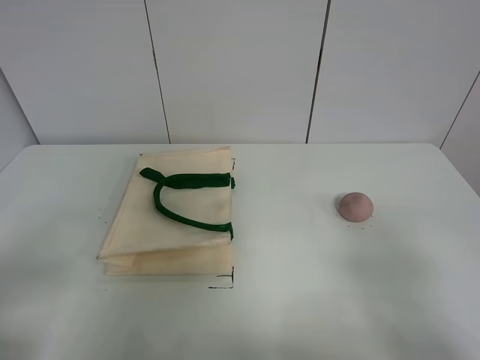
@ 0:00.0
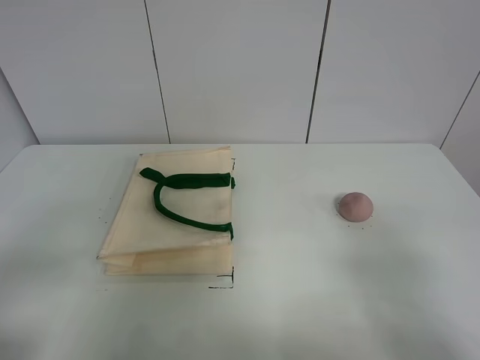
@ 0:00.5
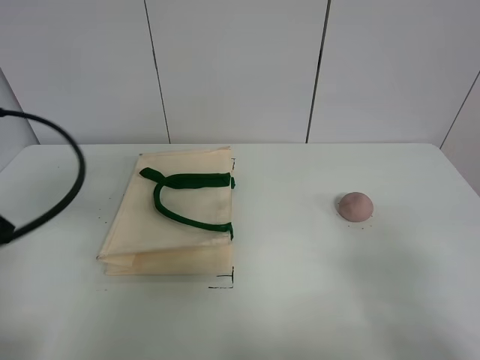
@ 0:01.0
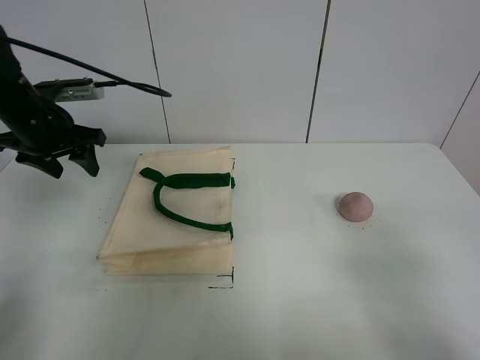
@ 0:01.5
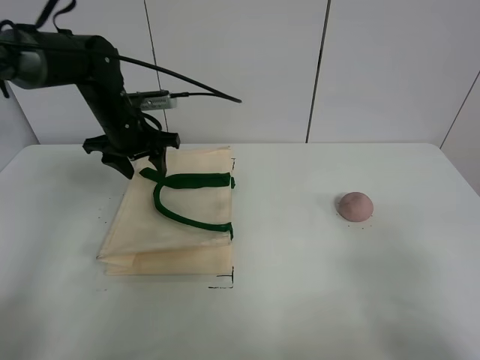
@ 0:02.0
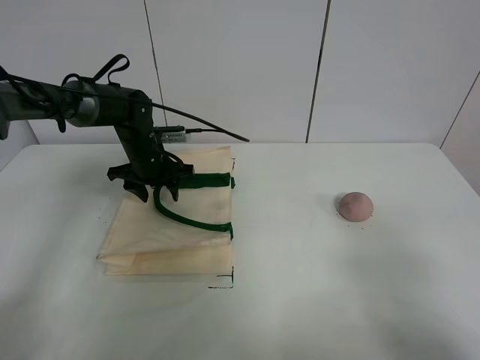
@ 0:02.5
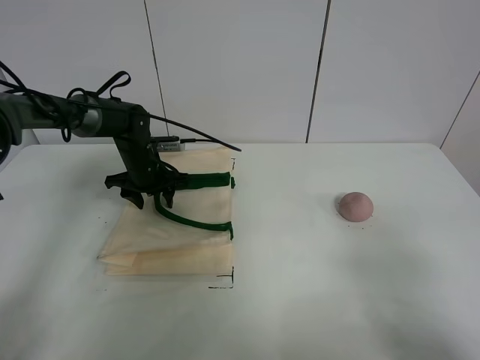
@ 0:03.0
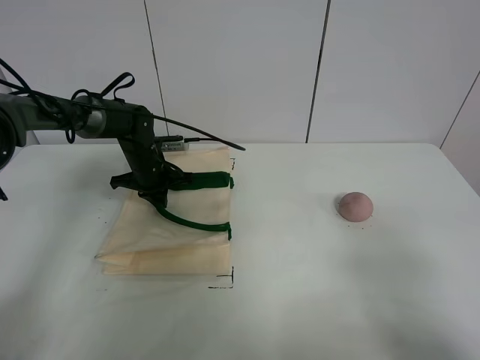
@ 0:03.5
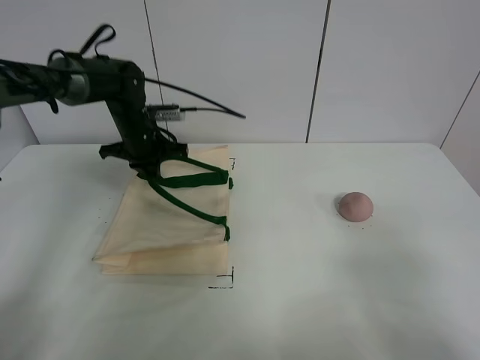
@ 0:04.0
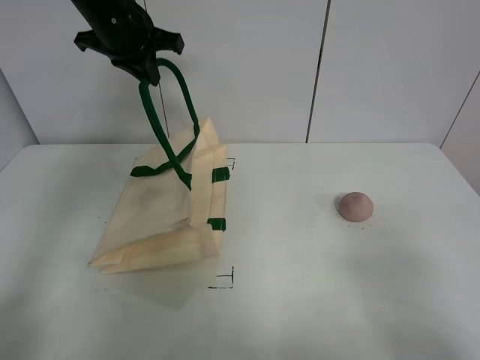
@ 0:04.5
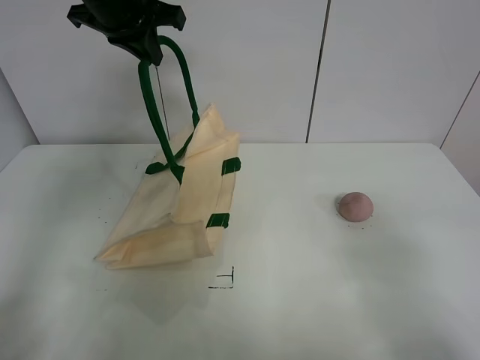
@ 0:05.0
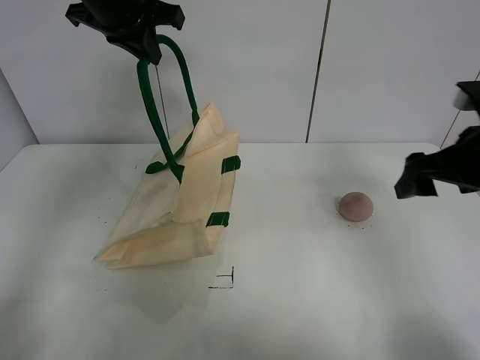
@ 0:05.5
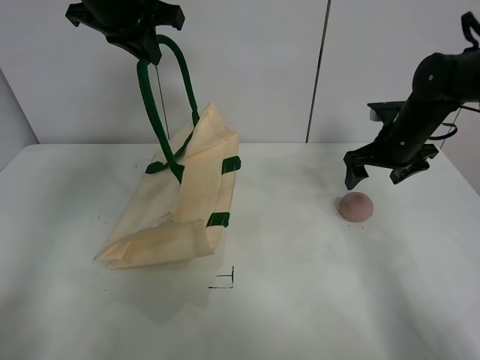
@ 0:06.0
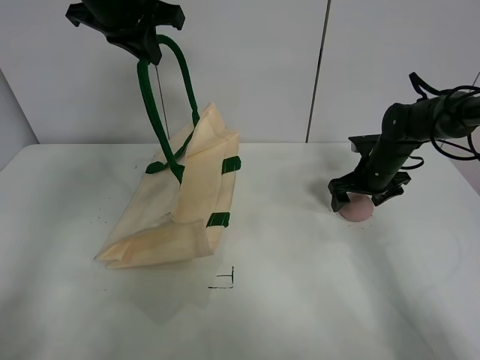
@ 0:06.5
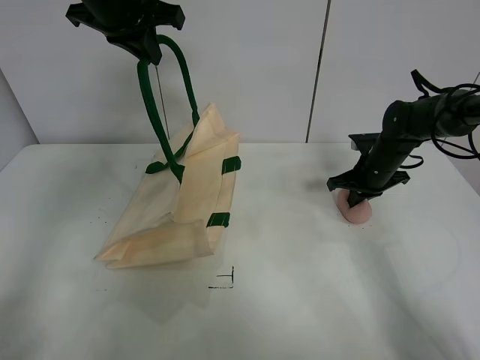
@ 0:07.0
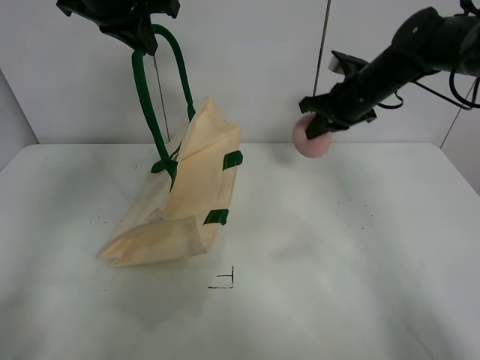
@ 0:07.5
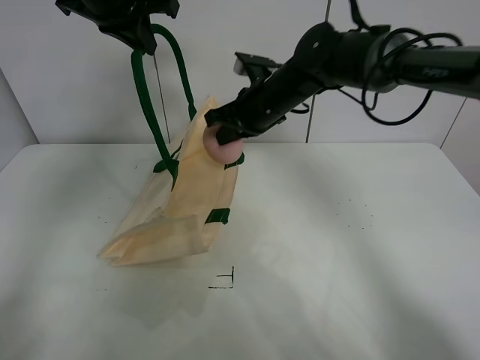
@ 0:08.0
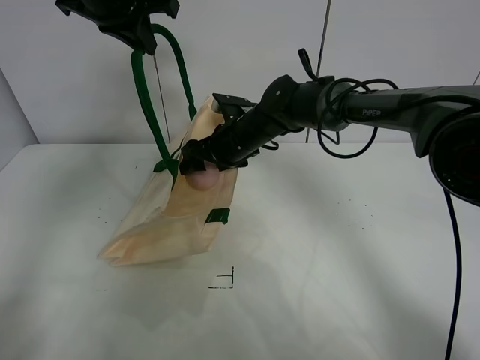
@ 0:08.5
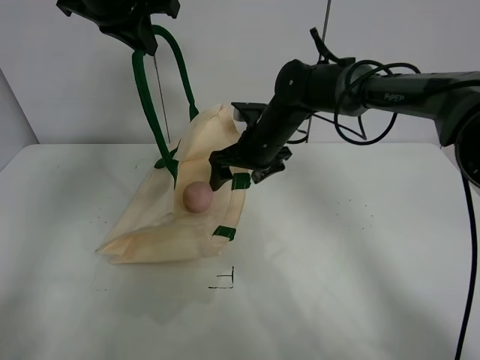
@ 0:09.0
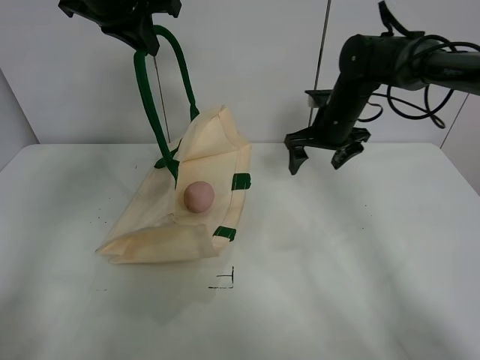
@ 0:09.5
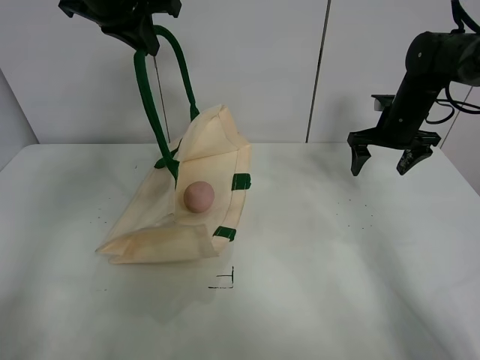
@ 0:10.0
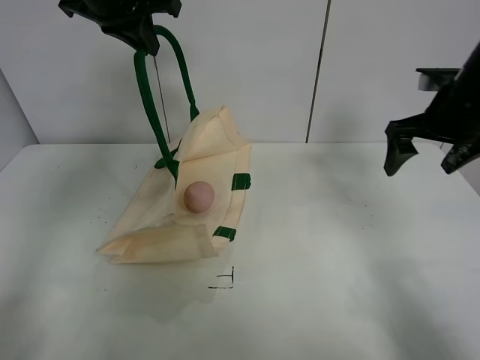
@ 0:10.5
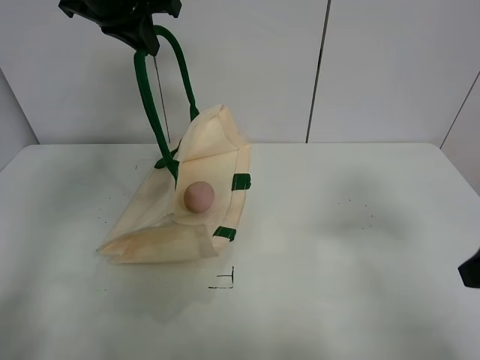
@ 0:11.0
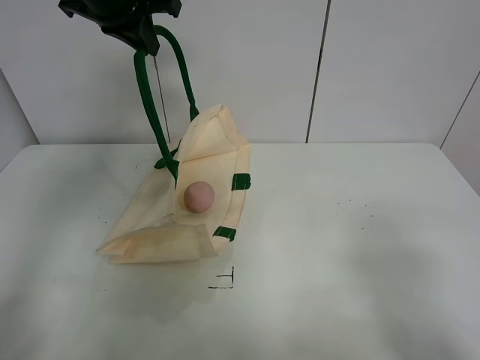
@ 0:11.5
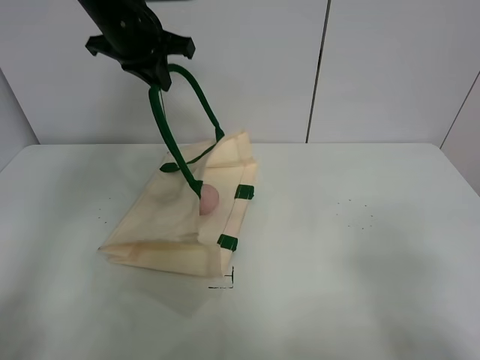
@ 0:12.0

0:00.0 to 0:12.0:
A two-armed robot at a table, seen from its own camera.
Task of the whole recording: open the white linen bag and put the peach in the bag.
Step, 0:00.0 to 0:04.5: Lift the handbag with left gripper.
Step, 0:05.0 to 0:06.5: Grasp the peach with right gripper.
Step, 0:07.0 to 0:08.5: Place the peach in the handbag with right gripper.
0:00.0 to 0:02.0: The left gripper moves forward, about 40 cm.
0:02.0 to 0:04.0: The left gripper moves roughly 10 cm downward and comes back, and closes.
0:04.0 to 0:06.0: The left gripper travels upward by about 20 cm. Meanwhile the right gripper heads forward, covering roughly 40 cm.
0:06.0 to 0:08.0: The right gripper moves to the left, roughly 20 cm, and closes up.
0:08.0 to 0:10.0: The right gripper travels to the right by about 25 cm, and opens up.
0:10.0 to 0:12.0: The right gripper shifts some 50 cm backward. Meanwhile the left gripper goes approximately 5 cm downward.

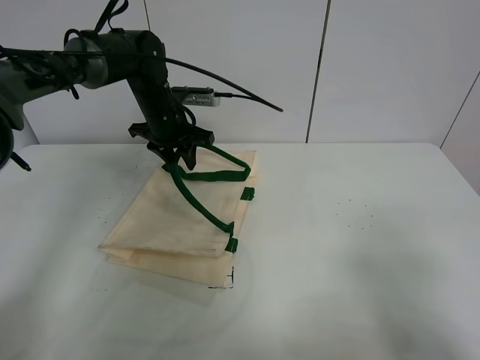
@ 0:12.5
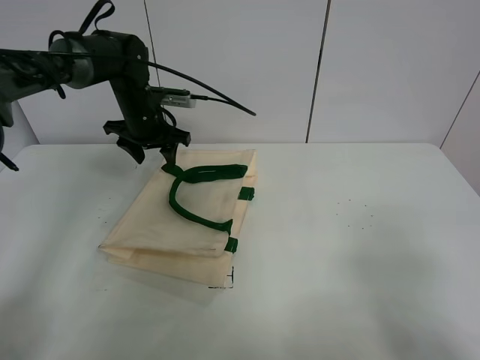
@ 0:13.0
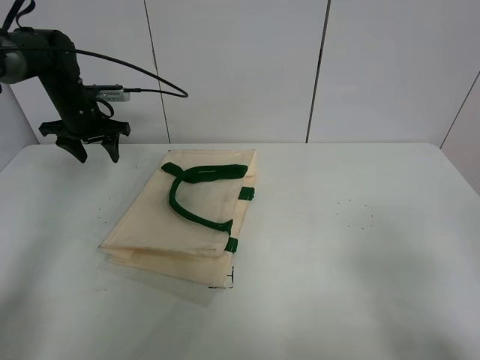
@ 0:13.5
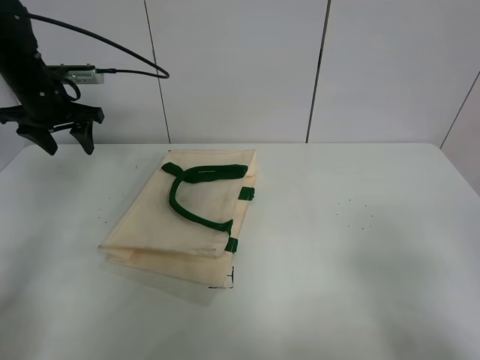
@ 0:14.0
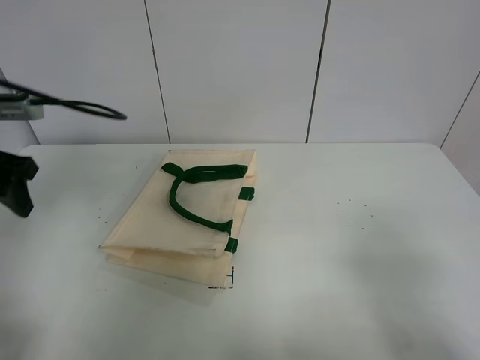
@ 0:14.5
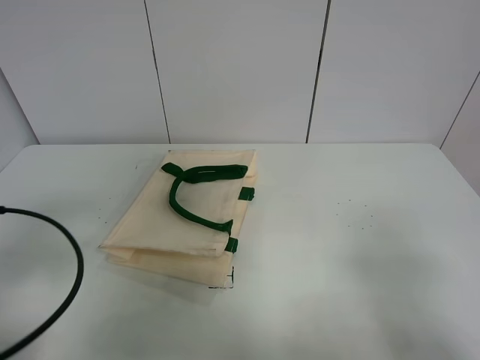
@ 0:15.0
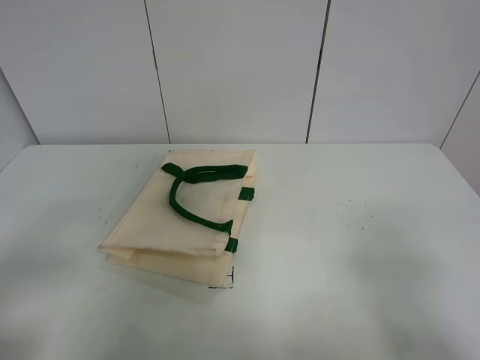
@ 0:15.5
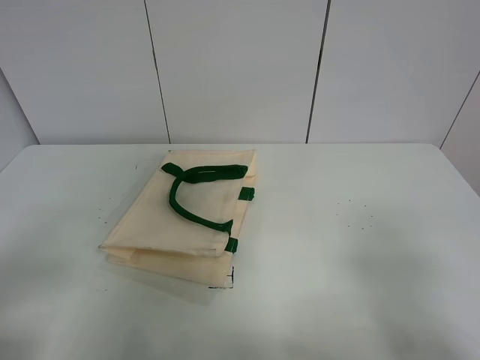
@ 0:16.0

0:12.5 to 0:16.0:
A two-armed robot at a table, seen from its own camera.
Task of the whole recording: open the white linen bag and put the peach in the bag.
0:12.5 to 0:14.5: The left gripper shifts about 30 cm backward and to the left.
0:14.5 to 0:16.0: The left gripper shifts roughly 25 cm backward.
